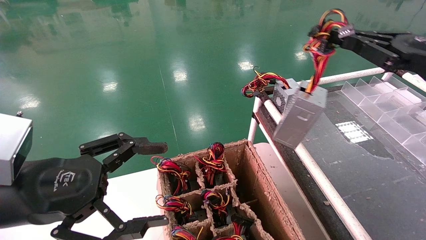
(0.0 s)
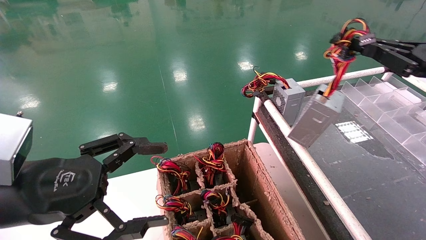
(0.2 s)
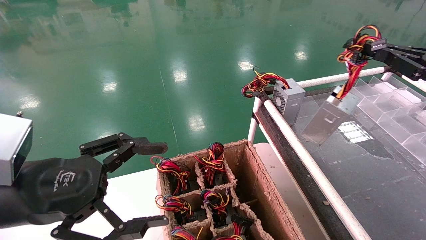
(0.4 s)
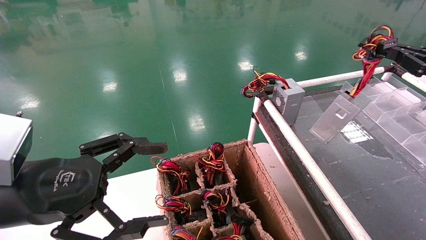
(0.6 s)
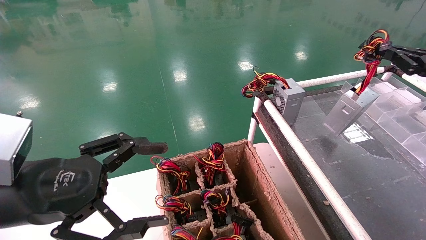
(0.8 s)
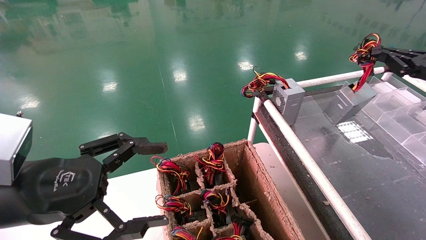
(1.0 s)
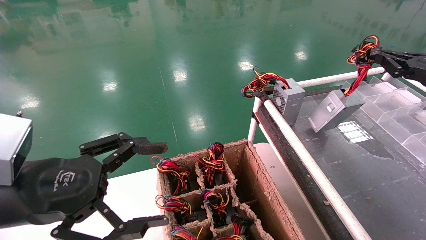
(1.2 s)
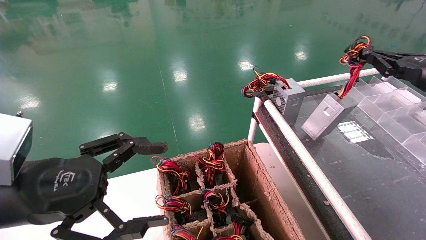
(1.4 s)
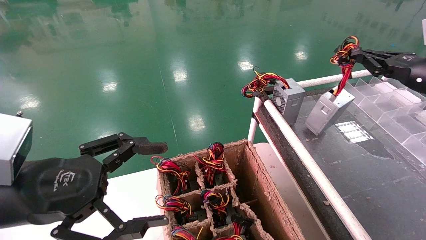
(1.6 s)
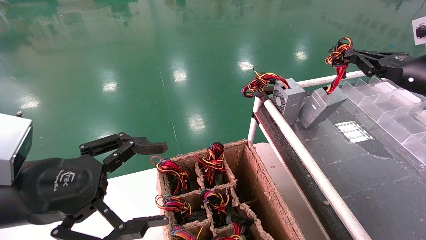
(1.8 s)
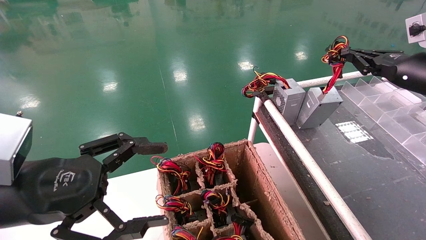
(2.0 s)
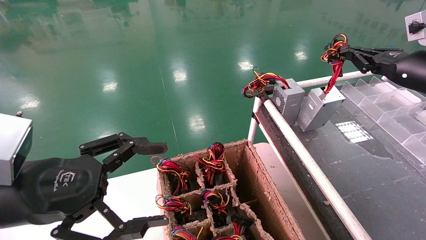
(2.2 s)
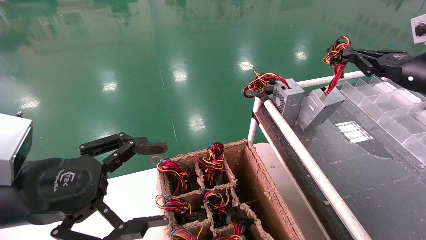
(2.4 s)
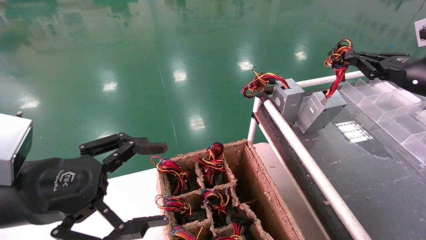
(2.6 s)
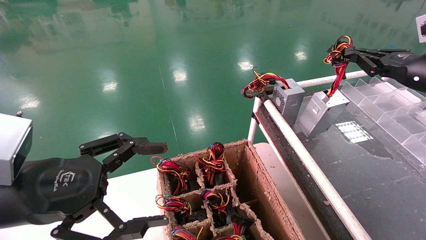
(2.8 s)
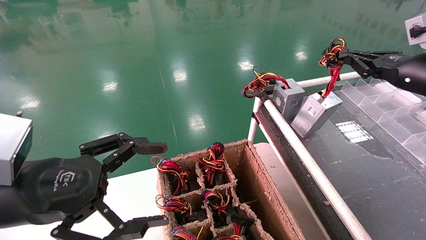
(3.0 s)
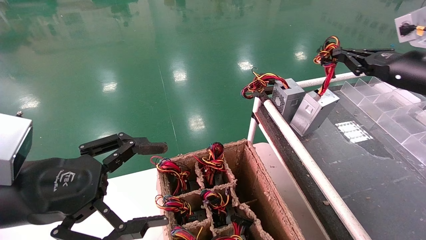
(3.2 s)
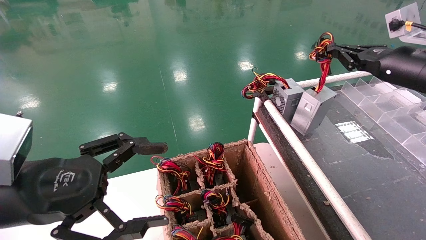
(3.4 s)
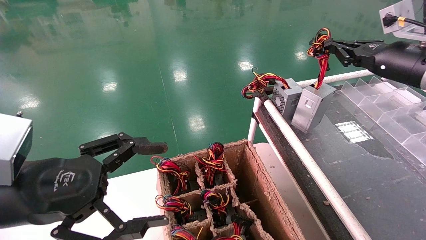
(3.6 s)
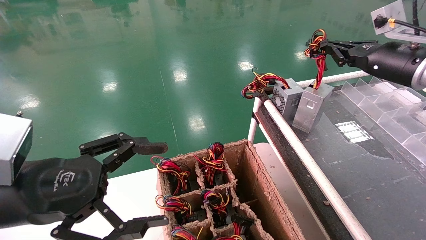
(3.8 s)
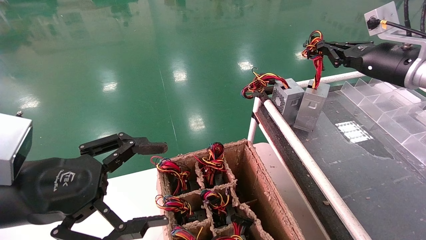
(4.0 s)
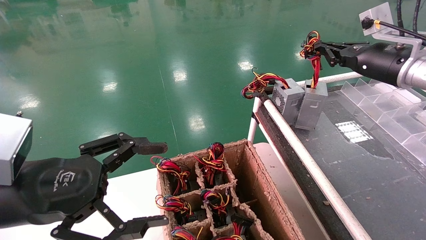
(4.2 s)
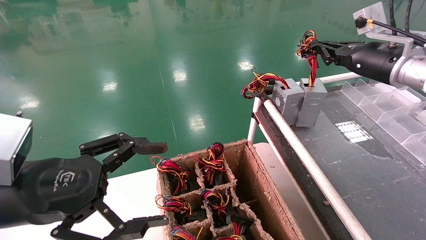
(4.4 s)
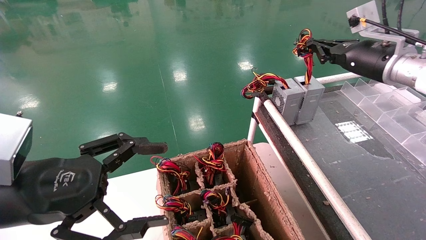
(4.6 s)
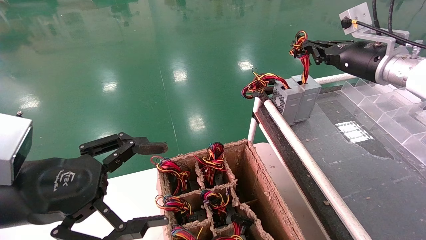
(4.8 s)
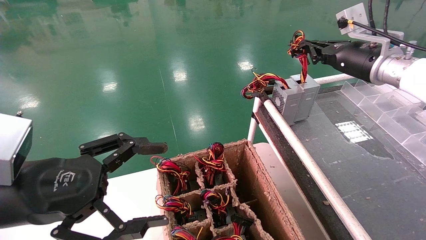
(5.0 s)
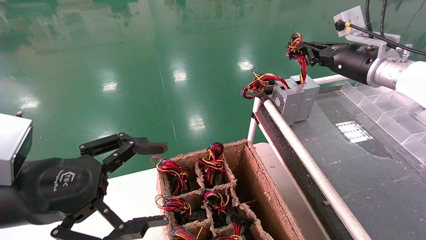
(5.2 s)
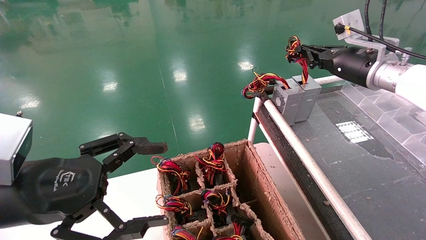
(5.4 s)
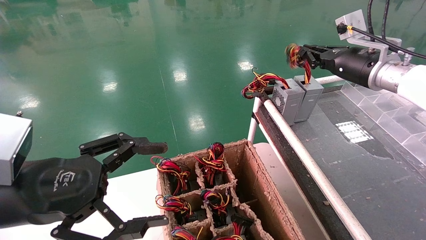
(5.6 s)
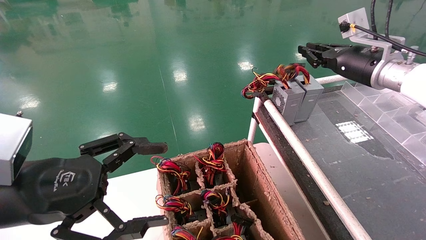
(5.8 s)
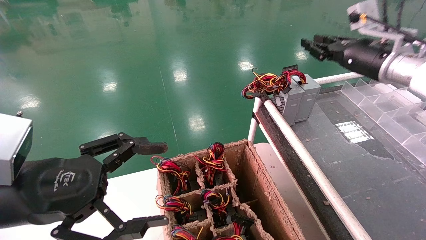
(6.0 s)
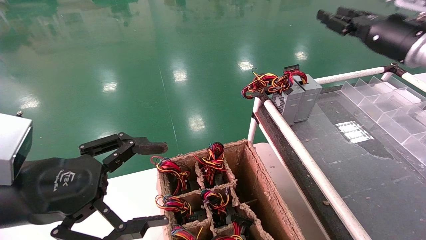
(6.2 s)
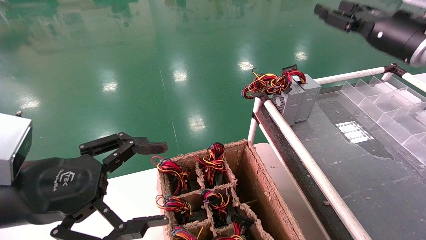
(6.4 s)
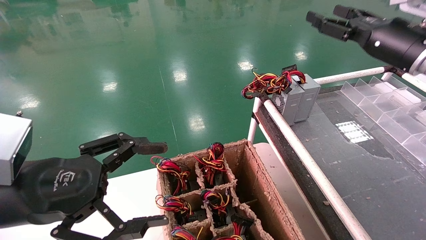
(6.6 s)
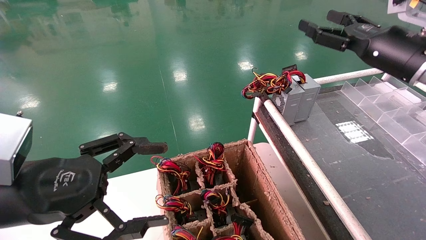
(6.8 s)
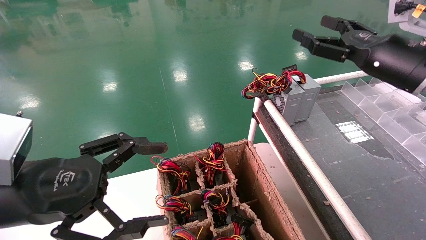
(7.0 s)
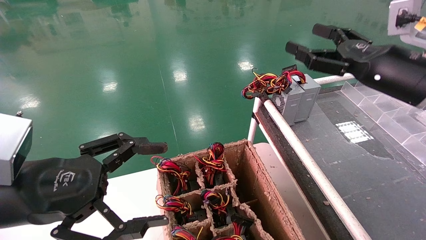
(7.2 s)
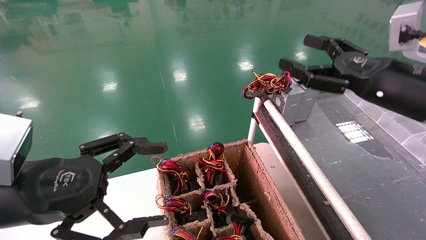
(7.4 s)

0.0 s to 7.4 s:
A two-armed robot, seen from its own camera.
Step, 0.0 to 5.6 s: Place the power supply on the operating table.
0.0 to 1.4 s: The right gripper is displaced forward and to the right by about 10 cm.
1.4 to 3.0 s: The grippers move only a little.
3.0 to 4.4 s: The right gripper moves to the left and forward, roughly 10 cm.
4.4 to 6.0 s: There are only small adjustments of the grippers.
6.0 to 7.4 s: The right gripper shifts about 10 cm backward, and opens.

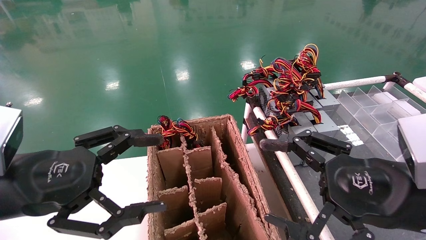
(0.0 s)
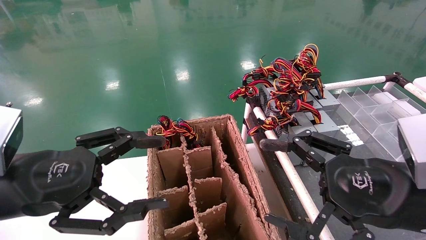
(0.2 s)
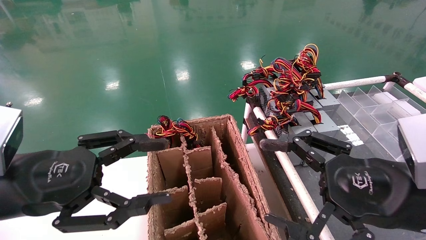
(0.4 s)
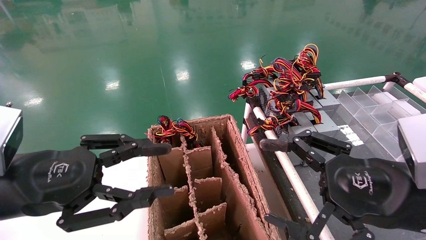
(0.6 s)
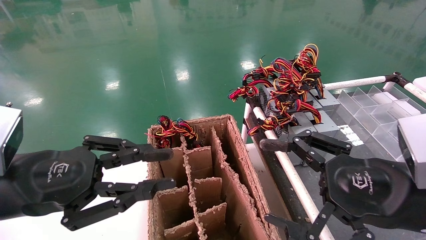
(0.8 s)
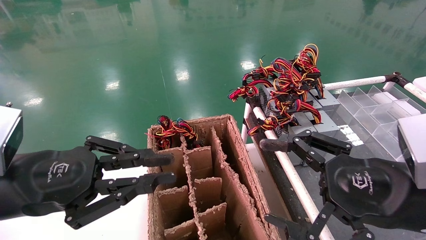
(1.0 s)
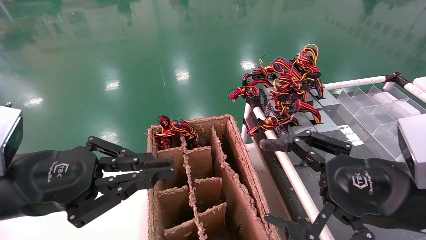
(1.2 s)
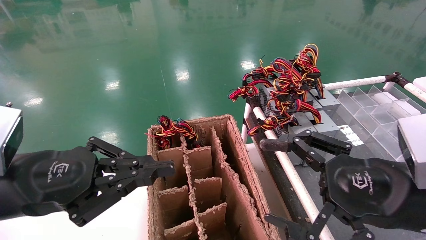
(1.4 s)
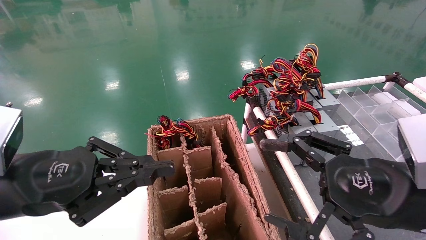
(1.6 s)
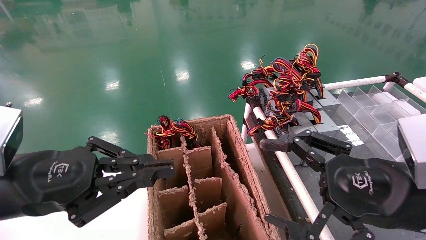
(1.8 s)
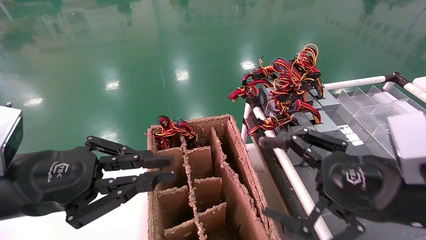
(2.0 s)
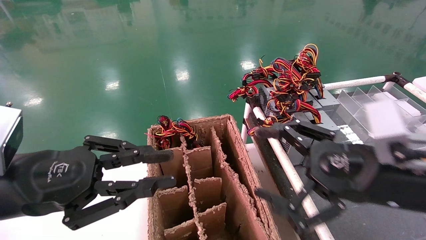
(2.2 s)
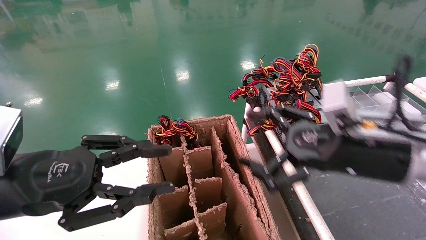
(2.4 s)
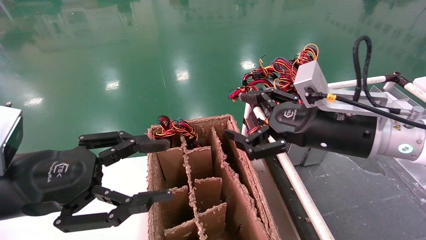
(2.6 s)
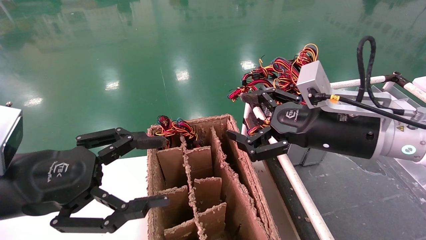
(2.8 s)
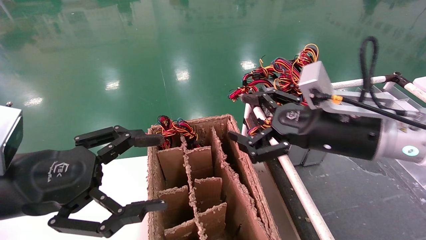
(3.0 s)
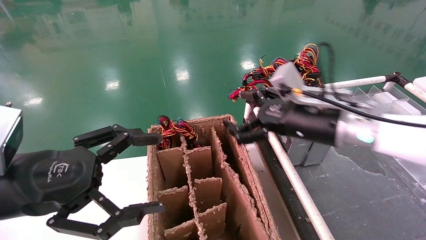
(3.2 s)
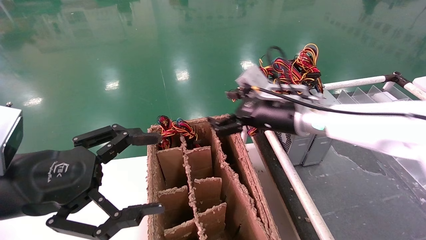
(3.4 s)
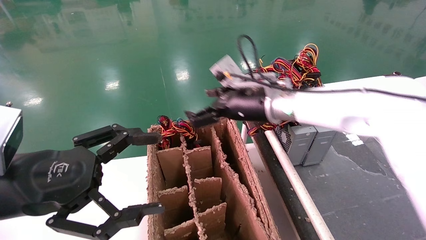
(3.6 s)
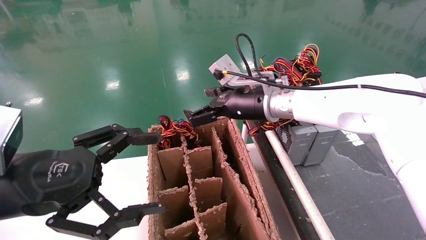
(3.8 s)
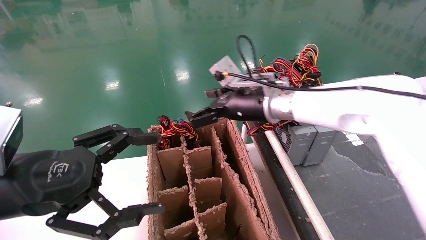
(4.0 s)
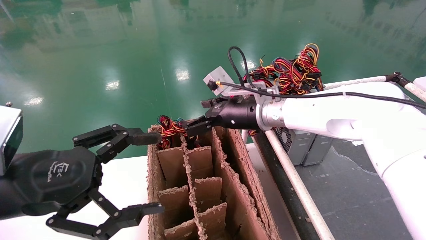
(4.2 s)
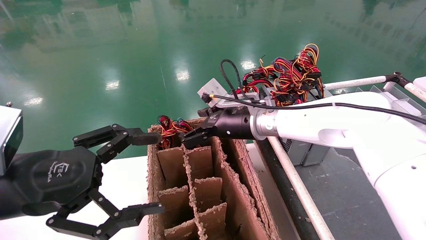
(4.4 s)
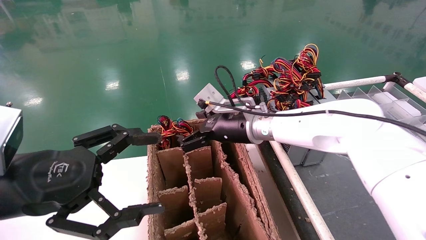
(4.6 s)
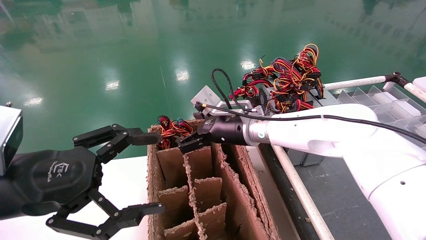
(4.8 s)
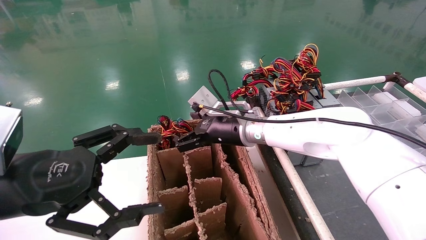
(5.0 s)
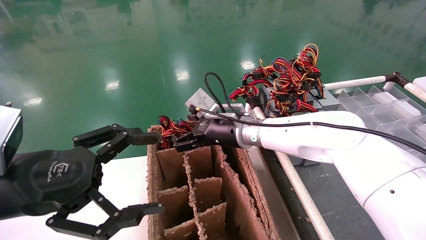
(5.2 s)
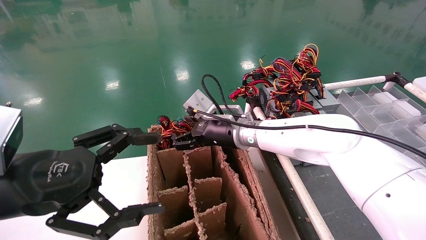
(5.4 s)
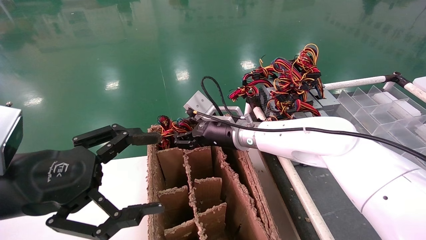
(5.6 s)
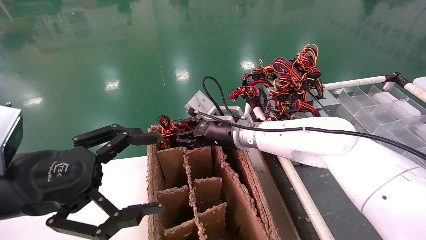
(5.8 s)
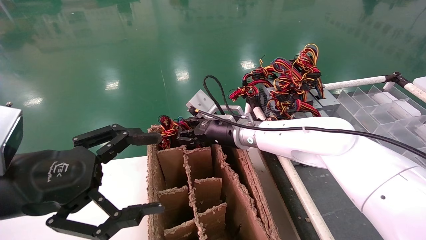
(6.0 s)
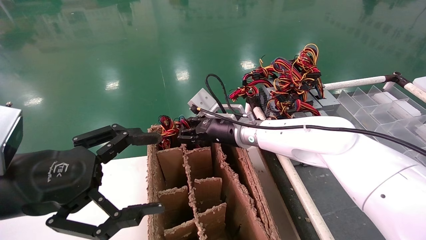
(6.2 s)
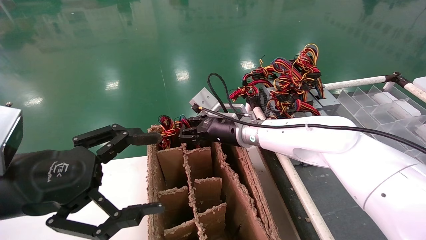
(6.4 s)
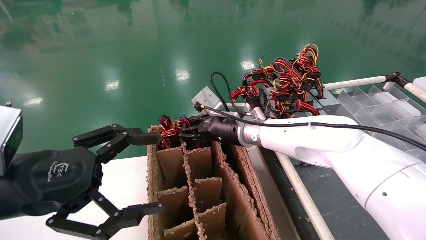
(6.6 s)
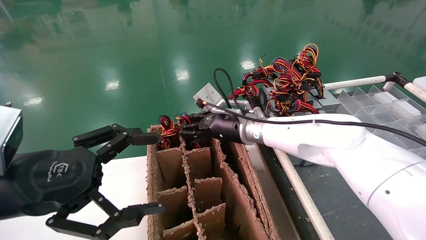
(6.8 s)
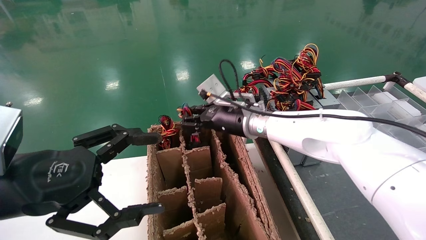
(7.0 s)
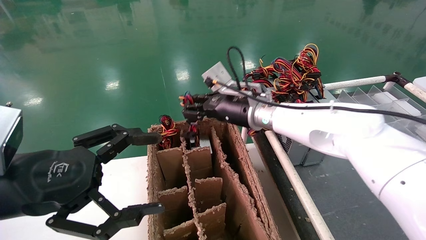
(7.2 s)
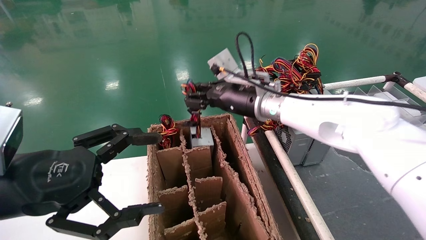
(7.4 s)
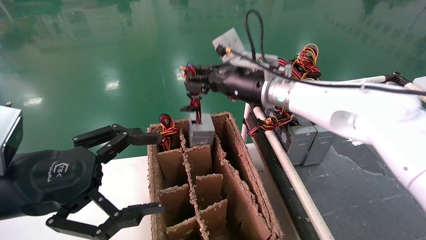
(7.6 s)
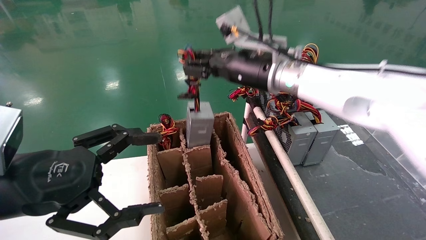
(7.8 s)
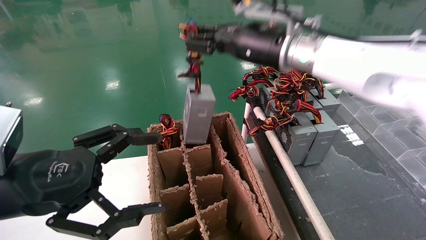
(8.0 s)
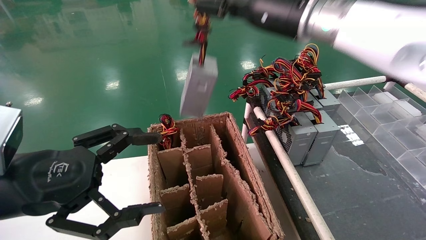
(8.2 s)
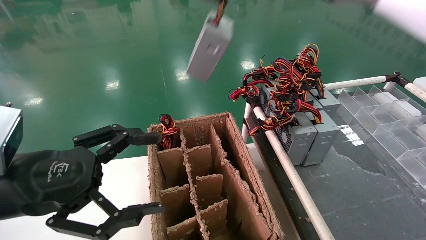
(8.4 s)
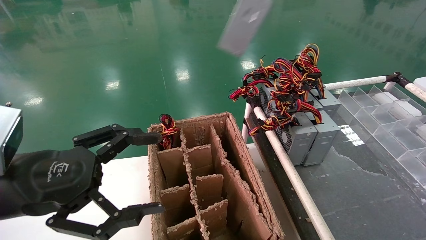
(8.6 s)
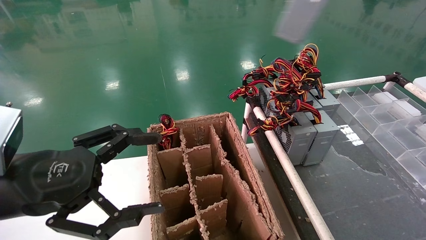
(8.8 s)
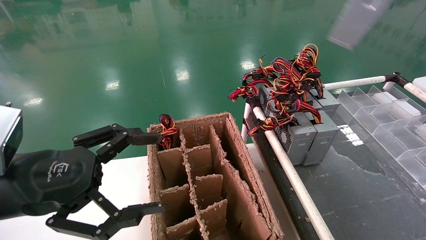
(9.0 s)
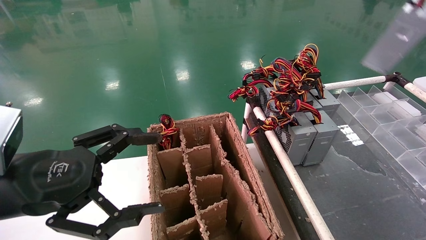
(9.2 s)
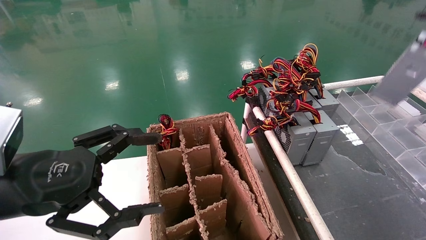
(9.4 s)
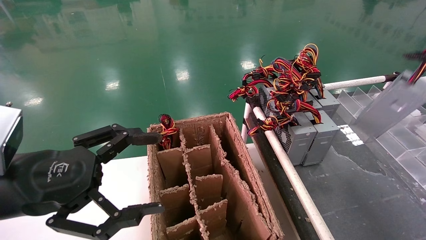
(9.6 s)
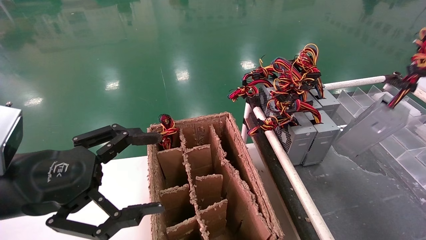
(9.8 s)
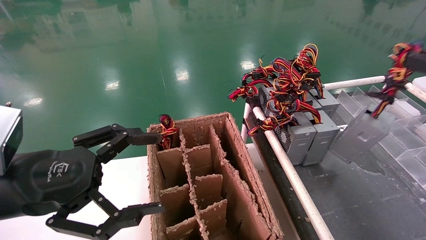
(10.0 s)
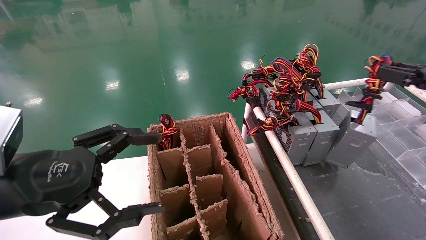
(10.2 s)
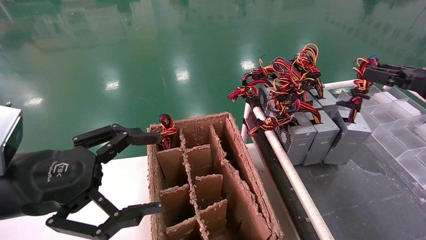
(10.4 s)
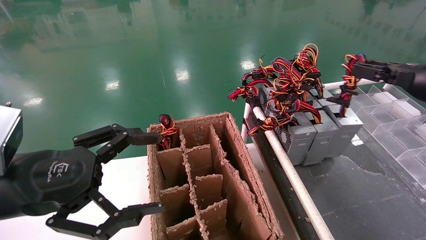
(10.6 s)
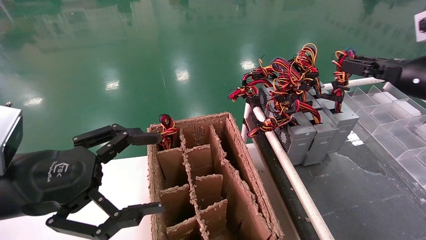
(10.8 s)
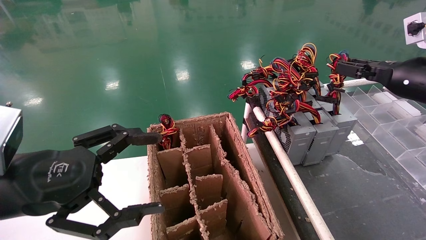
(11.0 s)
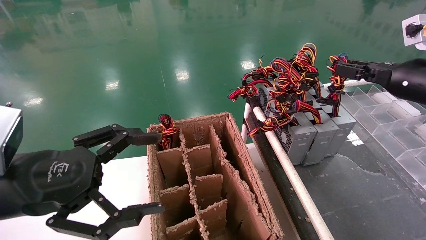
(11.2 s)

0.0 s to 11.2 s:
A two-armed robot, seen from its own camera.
Step, 1.4 to 6.0 s: Grab and lift the power supply from the large box.
0.0 to 1.6 s: The left gripper closes up.
1.6 to 3.2 s: The right gripper travels forward and to the left by about 20 cm; the left gripper opens.
3.2 to 4.8 s: The right gripper shifts approximately 15 cm to the left and forward.
4.8 to 6.4 s: The right gripper closes up.
6.4 to 8.0 s: The right gripper travels upward by roughly 20 cm.
8.0 to 9.6 s: The right gripper is displaced to the right and backward by roughly 40 cm.
9.6 to 11.2 s: The right gripper goes some 15 cm forward, to the left and downward.
